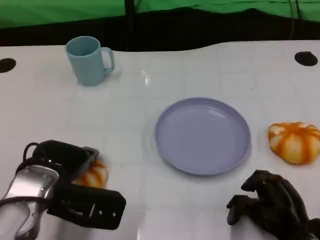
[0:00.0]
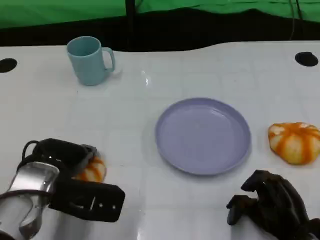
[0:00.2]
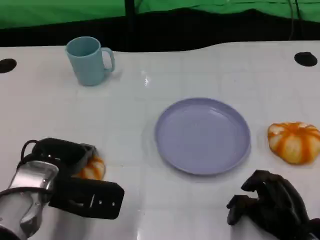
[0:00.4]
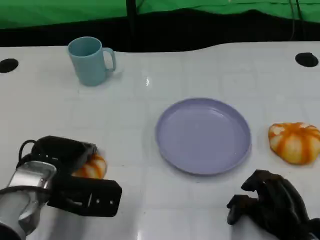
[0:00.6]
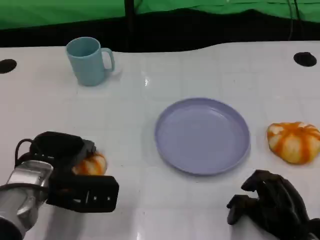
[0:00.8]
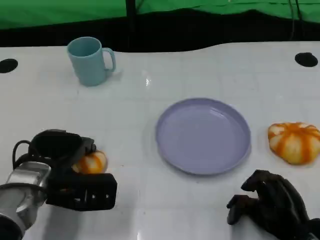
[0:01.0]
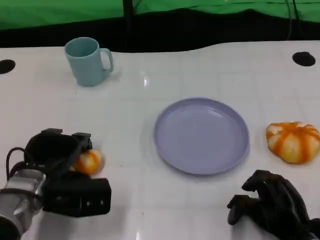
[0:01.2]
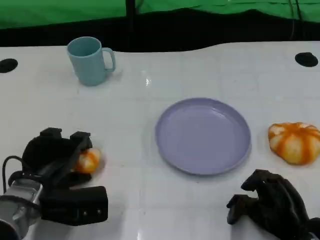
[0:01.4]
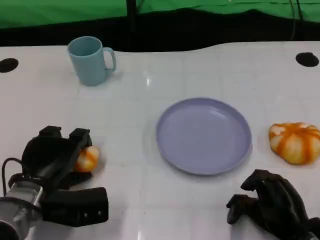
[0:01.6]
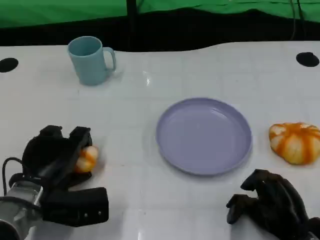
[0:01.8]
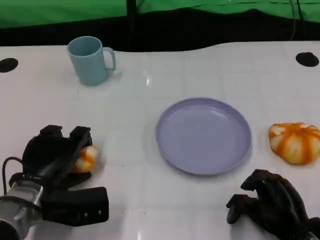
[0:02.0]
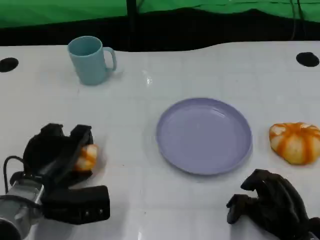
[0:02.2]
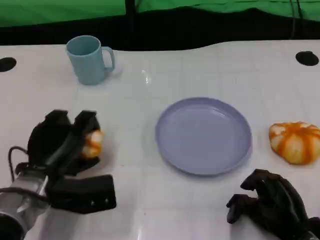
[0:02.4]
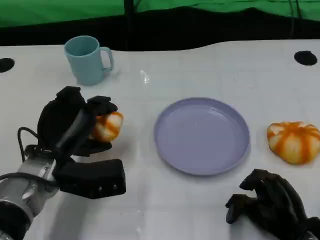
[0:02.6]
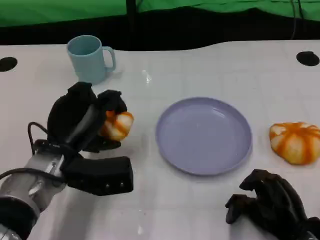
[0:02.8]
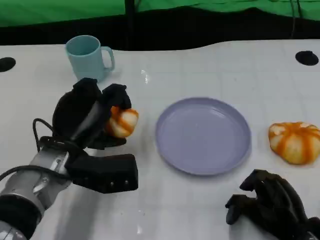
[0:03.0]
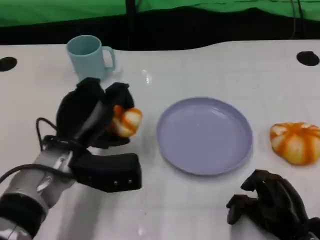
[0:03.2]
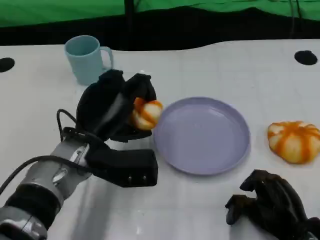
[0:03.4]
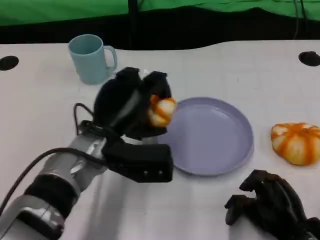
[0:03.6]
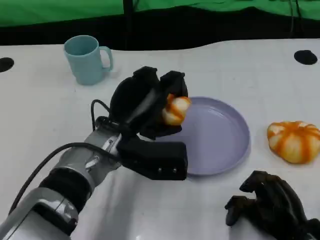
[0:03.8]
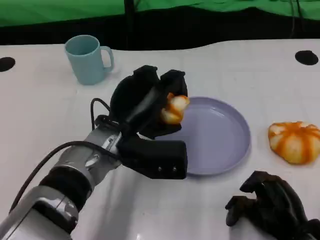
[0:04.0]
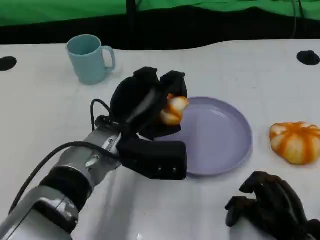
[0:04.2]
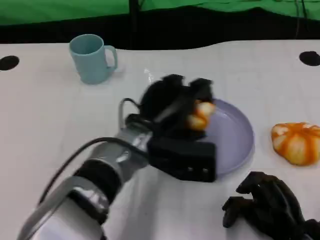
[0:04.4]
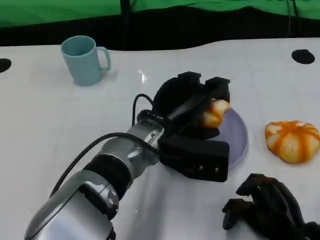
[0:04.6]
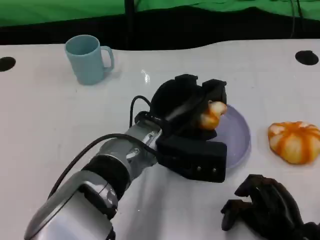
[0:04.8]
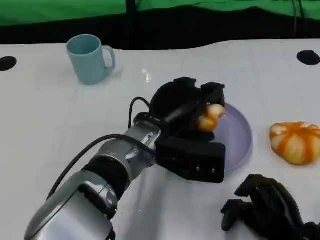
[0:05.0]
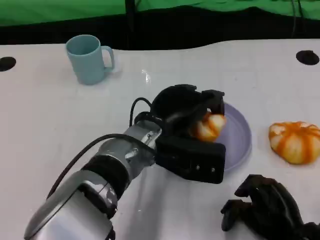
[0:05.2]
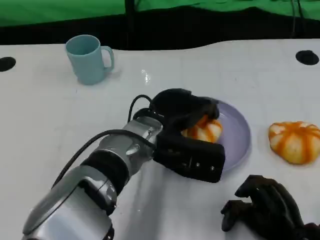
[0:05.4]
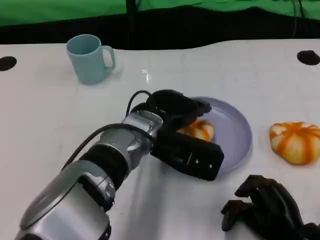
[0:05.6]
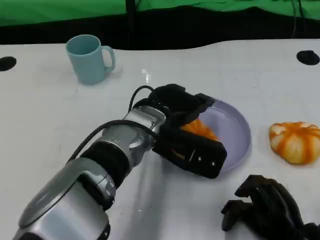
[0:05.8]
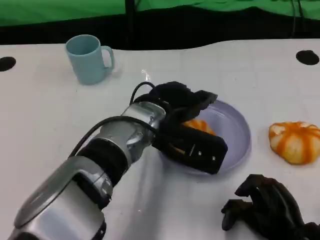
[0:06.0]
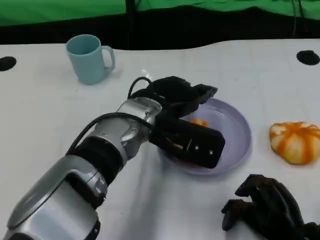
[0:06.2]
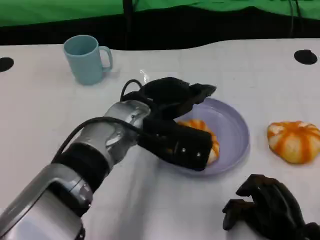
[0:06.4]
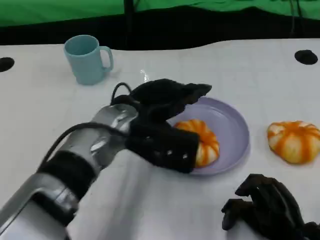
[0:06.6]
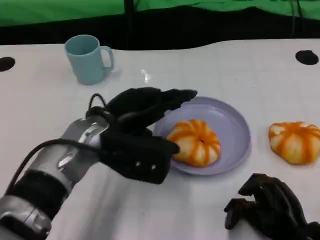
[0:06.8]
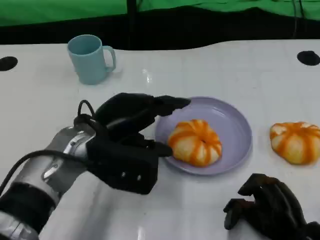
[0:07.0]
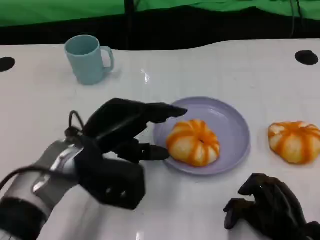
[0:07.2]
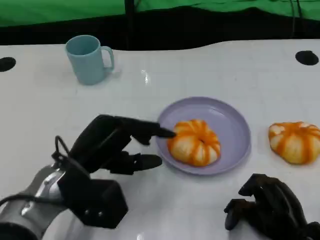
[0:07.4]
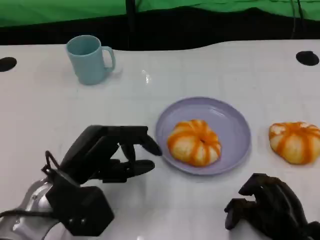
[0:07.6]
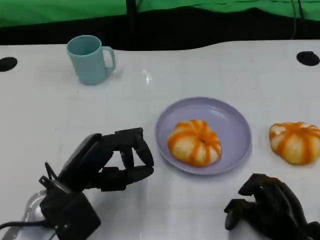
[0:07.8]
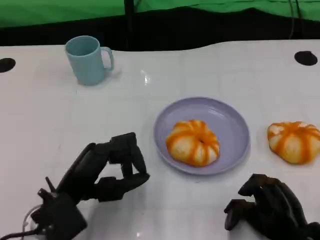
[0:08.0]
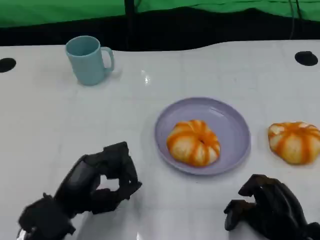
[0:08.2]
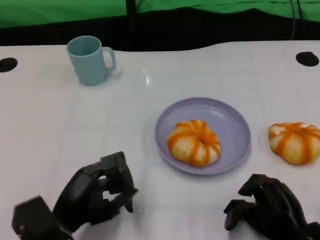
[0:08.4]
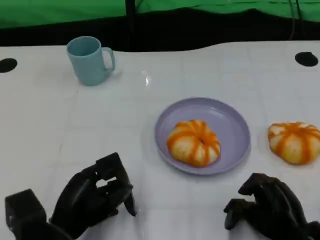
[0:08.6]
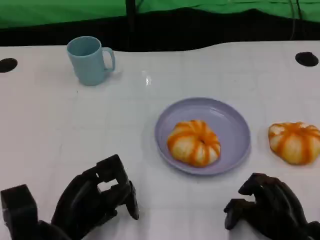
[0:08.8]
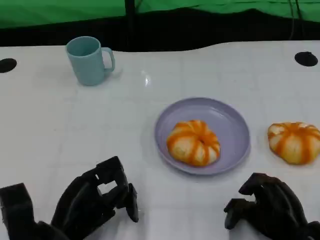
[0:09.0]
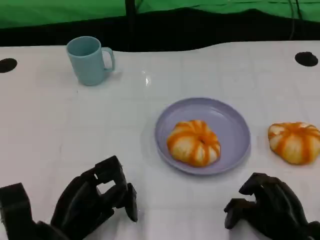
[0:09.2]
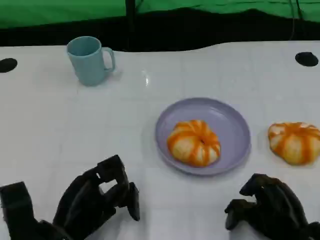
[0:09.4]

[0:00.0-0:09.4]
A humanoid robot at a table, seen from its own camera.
Task of the whole recording: Grasp the bread from the table and place it into the plate.
0:00.0 to 0:01.6: The left hand is displaced downward by roughly 5 cm.
0:01.6 to 0:03.2: The left hand goes approximately 10 cm to the right and upward.
0:03.2 to 0:04.8: The left hand is displaced to the right by roughly 10 cm.
0:06.2 to 0:07.8: The left hand heads to the left, backward and downward, covering roughly 20 cm.
0:07.8 to 0:09.4: The left hand changes place by approximately 5 cm.

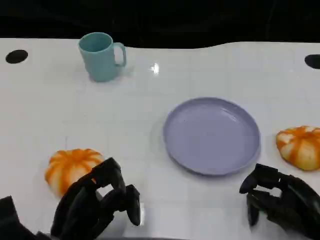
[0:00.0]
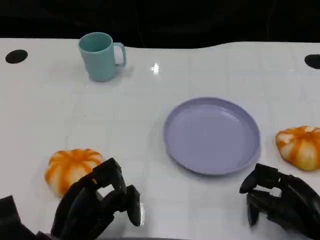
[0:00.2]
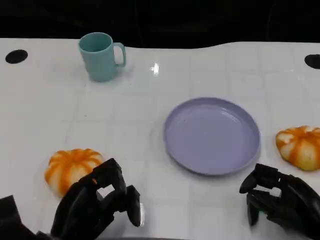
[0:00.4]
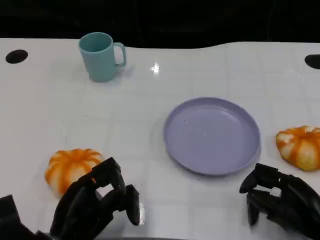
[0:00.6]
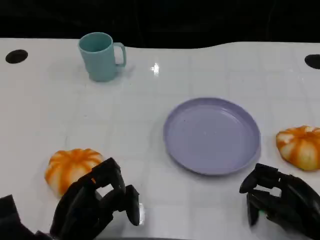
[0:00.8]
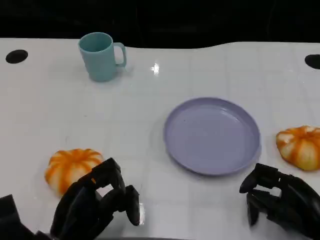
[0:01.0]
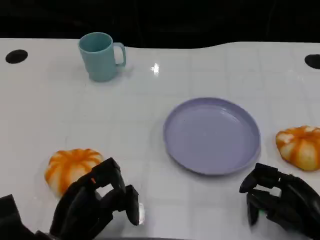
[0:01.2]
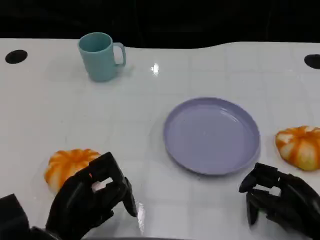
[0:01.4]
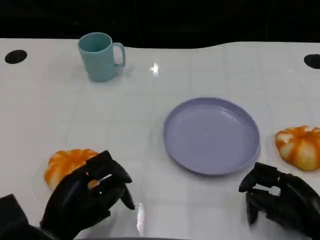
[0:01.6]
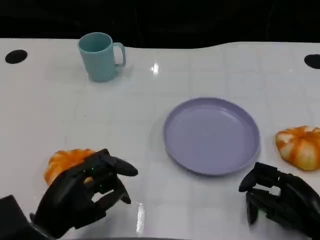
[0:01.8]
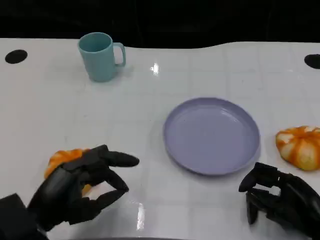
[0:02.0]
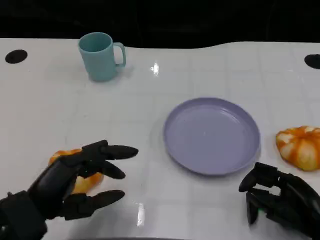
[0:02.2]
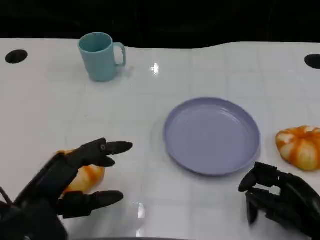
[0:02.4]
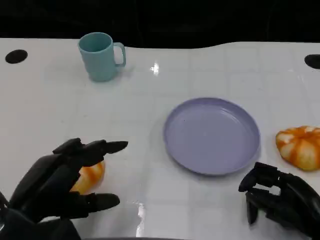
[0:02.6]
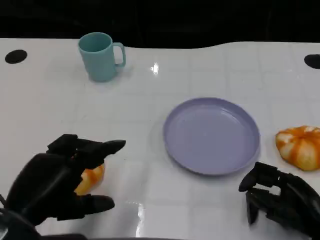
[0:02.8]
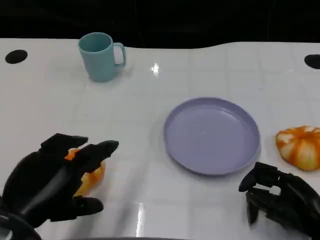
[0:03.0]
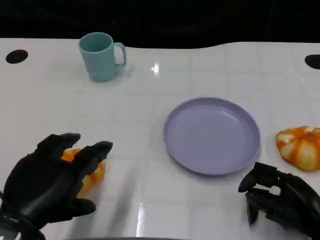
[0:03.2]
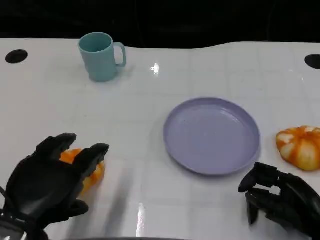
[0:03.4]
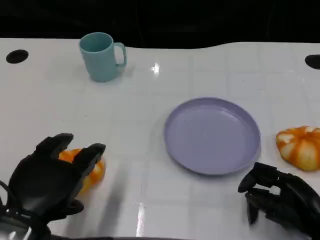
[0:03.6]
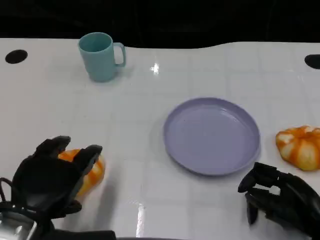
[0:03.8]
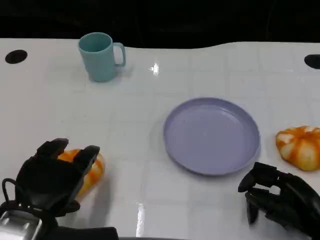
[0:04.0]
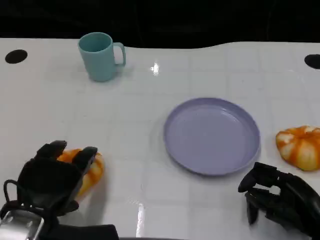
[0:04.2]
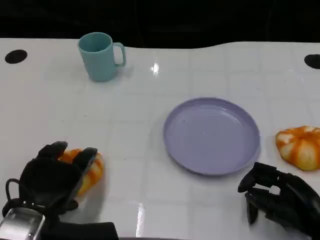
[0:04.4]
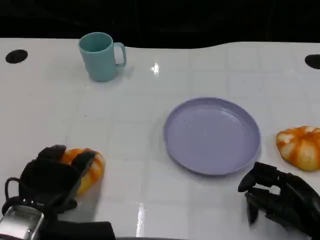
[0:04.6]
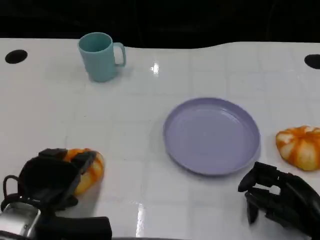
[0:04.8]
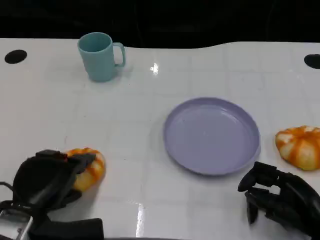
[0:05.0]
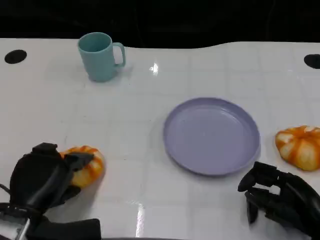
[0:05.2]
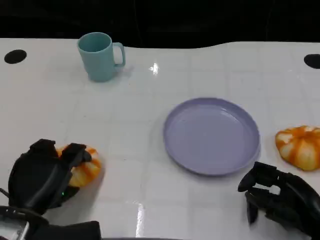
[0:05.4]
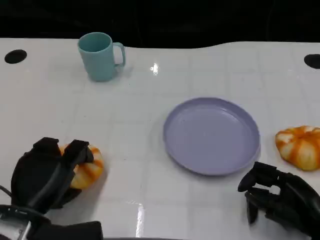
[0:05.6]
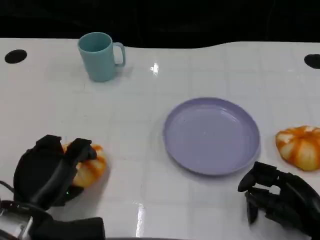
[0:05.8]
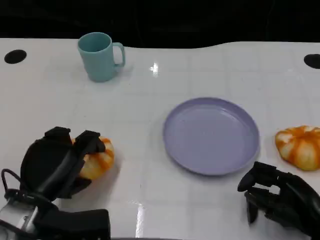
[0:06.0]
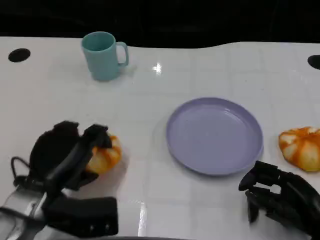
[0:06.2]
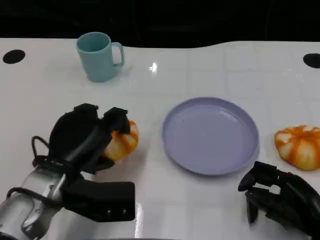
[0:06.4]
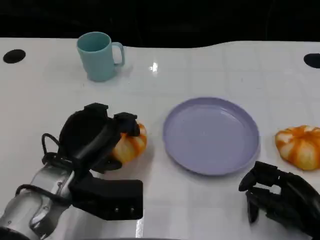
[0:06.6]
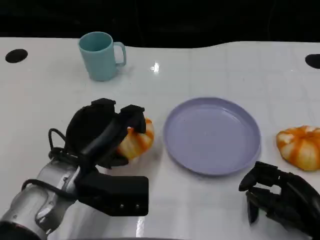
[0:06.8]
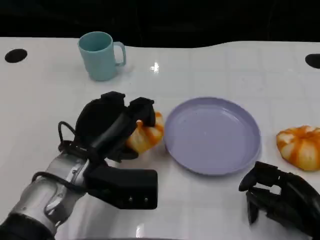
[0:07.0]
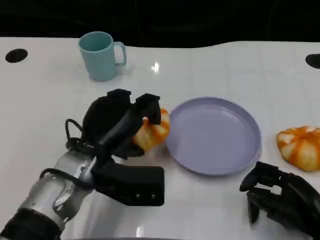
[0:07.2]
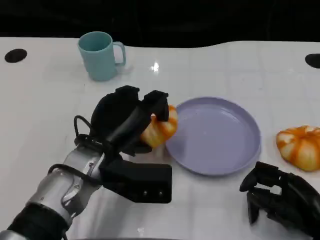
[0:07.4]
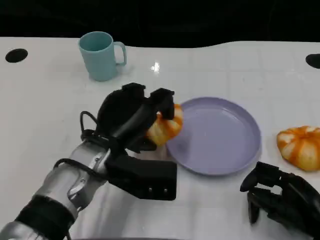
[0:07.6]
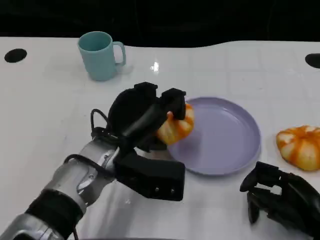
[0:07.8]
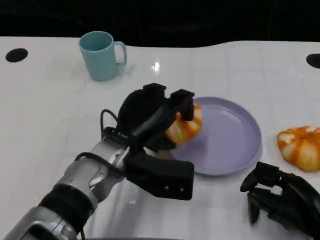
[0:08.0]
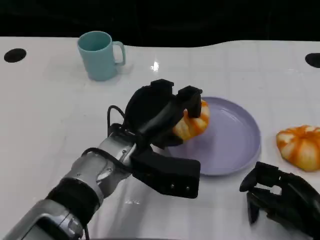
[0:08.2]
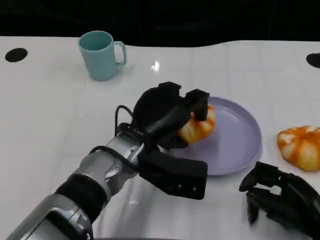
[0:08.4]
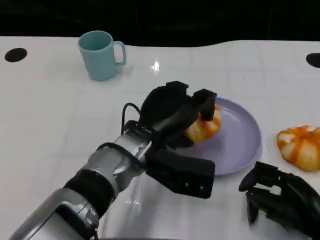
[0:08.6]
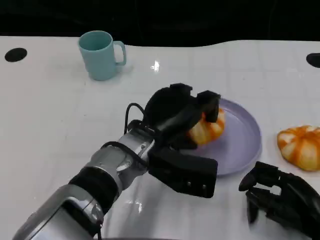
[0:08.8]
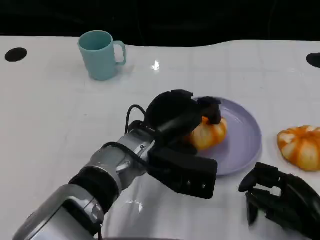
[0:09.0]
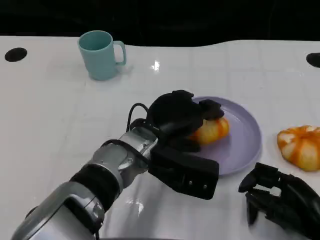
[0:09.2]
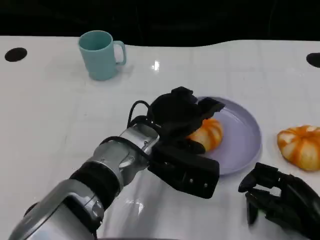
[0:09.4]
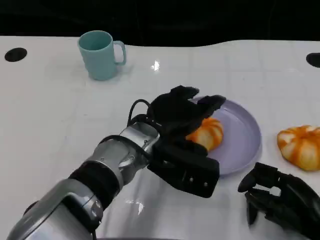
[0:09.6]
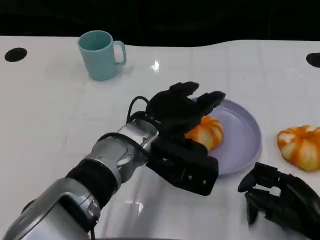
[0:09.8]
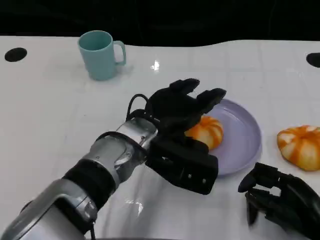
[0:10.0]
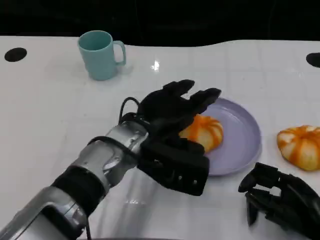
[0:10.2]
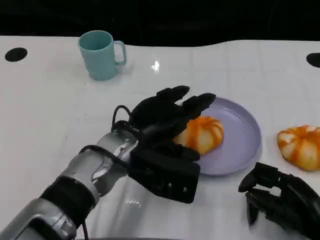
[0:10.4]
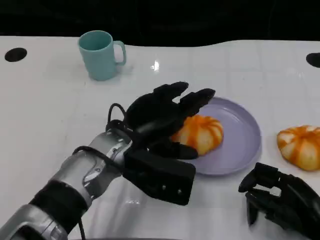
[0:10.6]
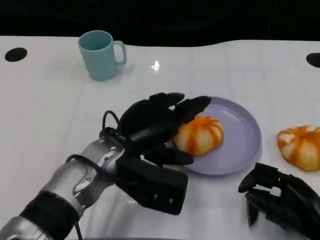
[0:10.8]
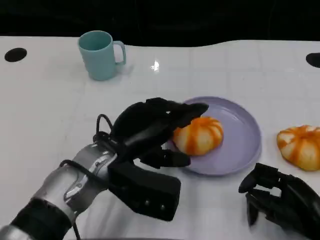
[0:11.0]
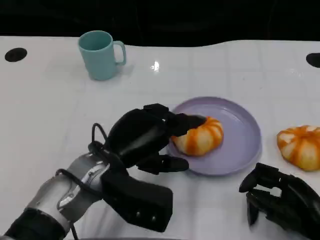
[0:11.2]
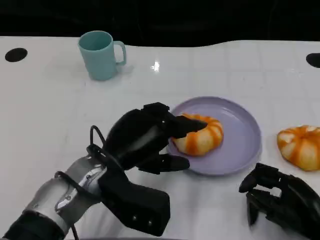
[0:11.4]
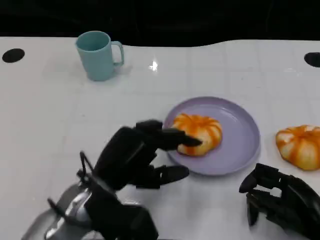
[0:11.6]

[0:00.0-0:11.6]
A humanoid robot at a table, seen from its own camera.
Task of the whole recording: Grasp the bread from the table and place it into the plate.
0:00.0 to 0:01.4: The hands move only a little.
0:01.4 to 0:02.8: The left hand heads upward, covering some 10 cm.
0:02.8 to 0:04.4: The left hand shifts roughly 5 cm downward.
0:05.8 to 0:07.2: The left hand heads to the right, upward and forward, covering roughly 10 cm.
0:07.2 to 0:08.8: The left hand shifts some 10 cm to the right.
0:08.8 to 0:10.2: The hands make only small movements.
0:10.2 to 0:11.6: The left hand shifts about 10 cm backward and to the left.

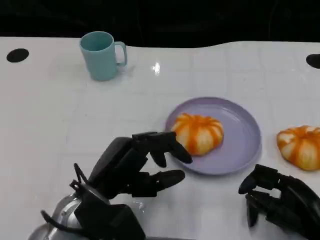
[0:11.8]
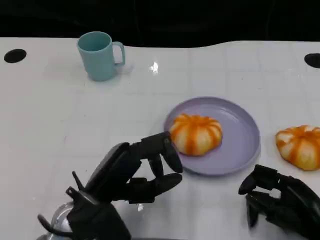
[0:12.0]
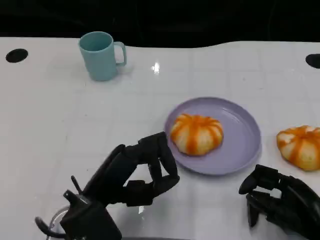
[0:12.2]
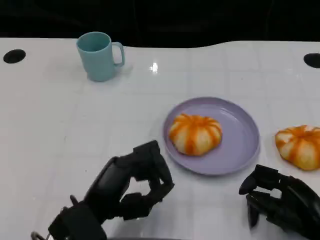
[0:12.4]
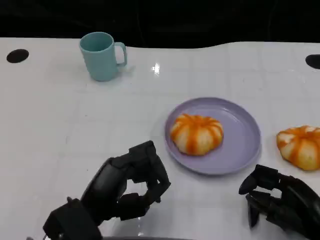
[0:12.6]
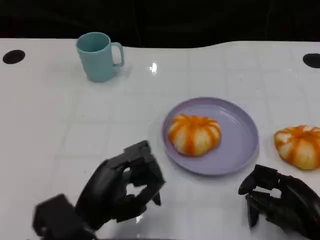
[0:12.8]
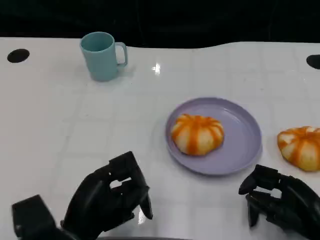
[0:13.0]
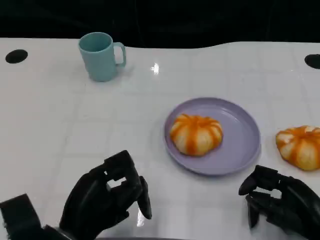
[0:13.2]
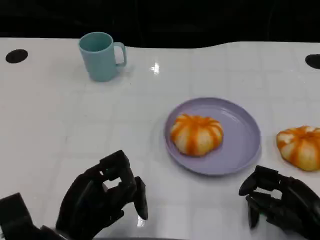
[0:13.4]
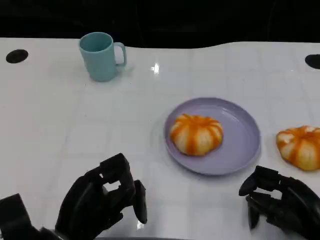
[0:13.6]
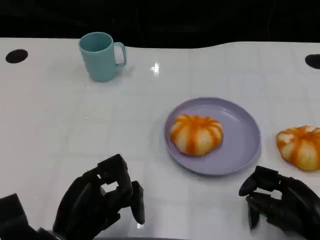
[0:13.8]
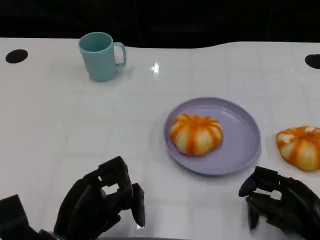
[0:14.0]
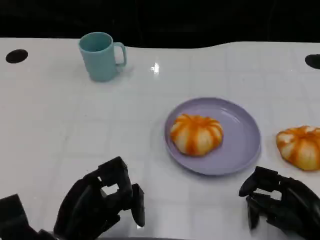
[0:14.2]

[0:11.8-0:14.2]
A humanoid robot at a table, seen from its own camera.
Task of the whole recording: Grasp the bread from the table and place it into the plate.
0:11.8 to 0:13.0: The left hand shifts by approximately 5 cm.
0:13.0 to 0:14.2: There are only small adjustments of the hands.
